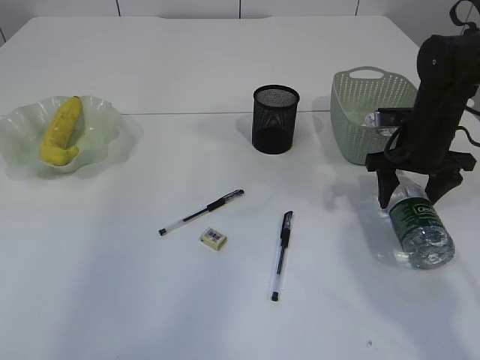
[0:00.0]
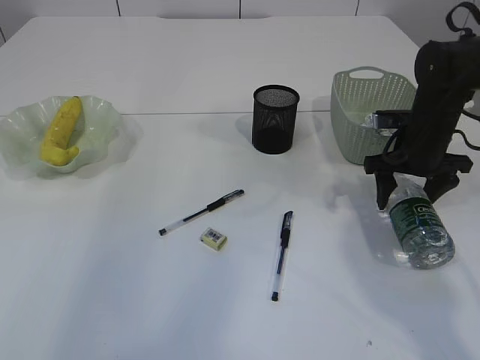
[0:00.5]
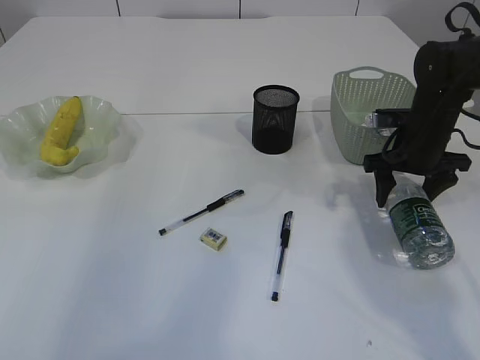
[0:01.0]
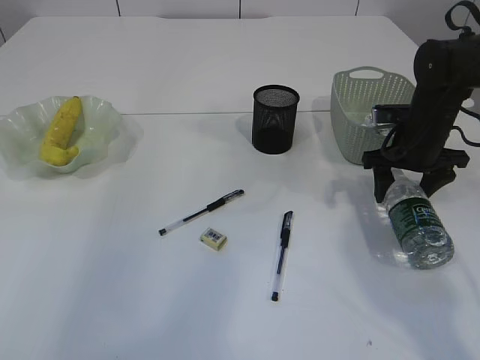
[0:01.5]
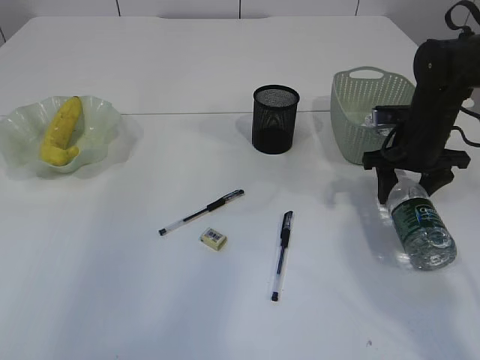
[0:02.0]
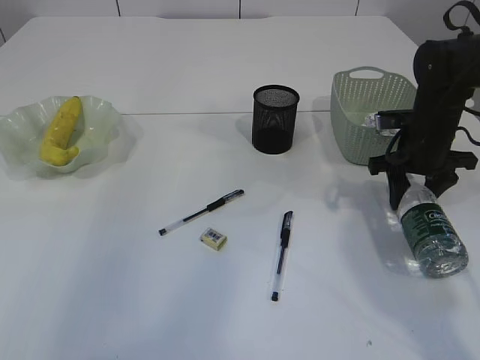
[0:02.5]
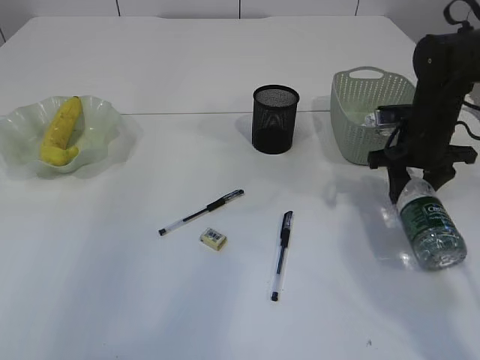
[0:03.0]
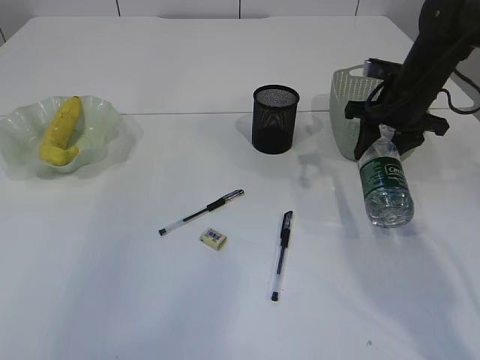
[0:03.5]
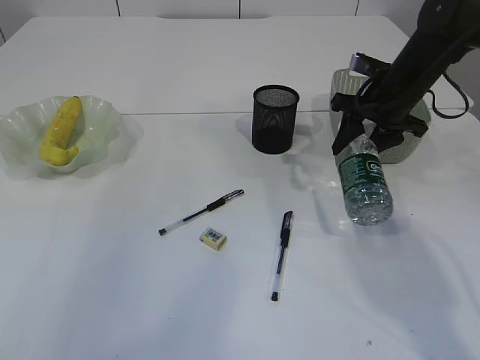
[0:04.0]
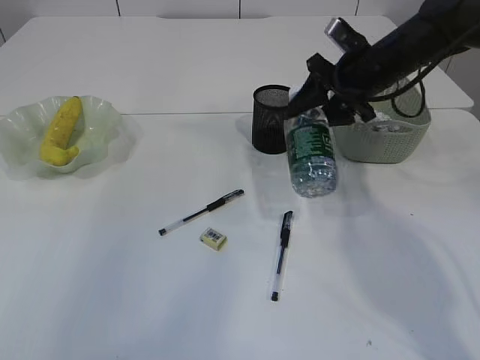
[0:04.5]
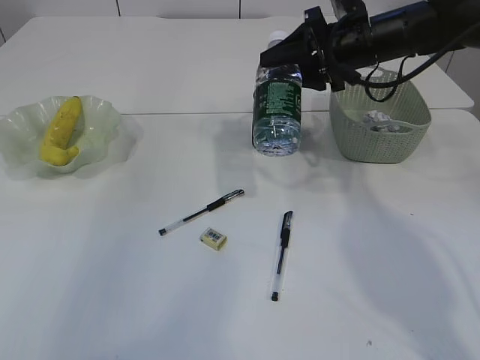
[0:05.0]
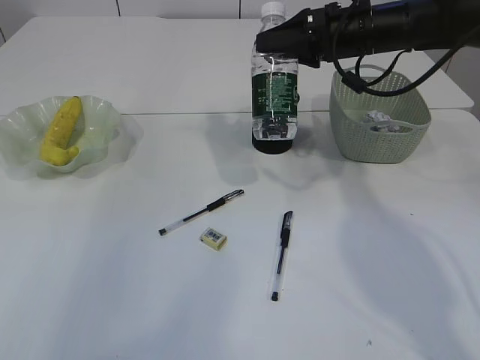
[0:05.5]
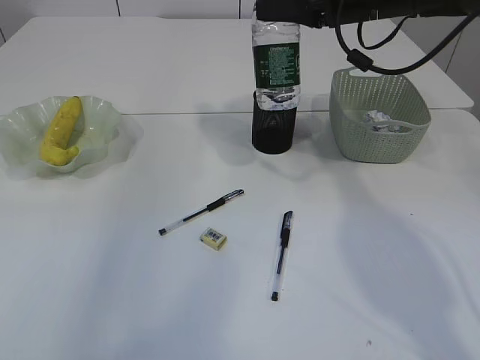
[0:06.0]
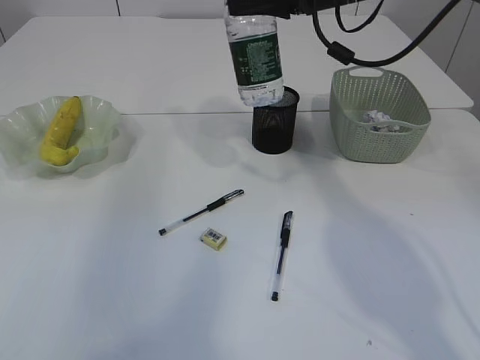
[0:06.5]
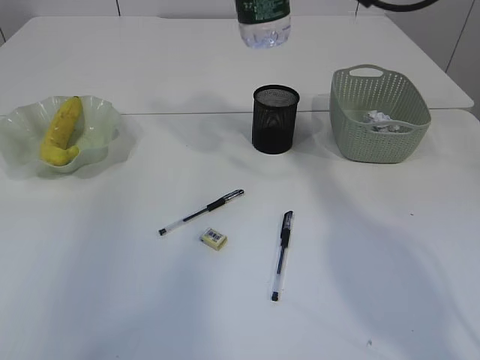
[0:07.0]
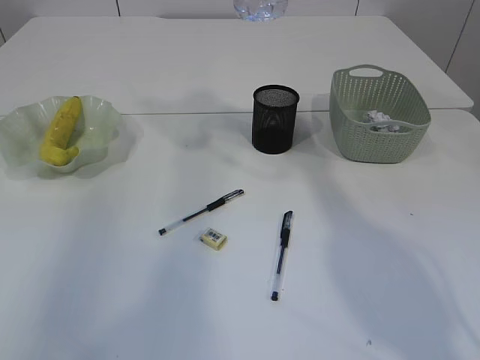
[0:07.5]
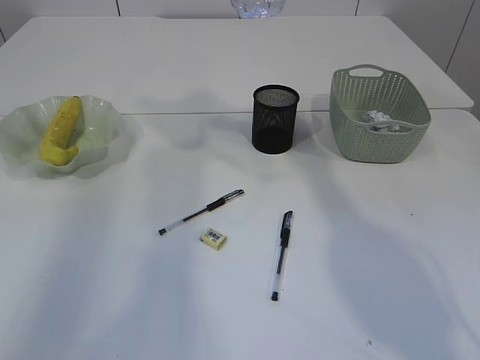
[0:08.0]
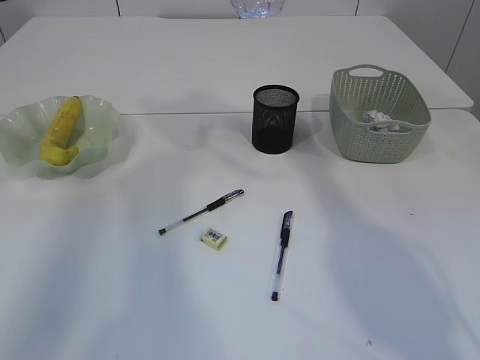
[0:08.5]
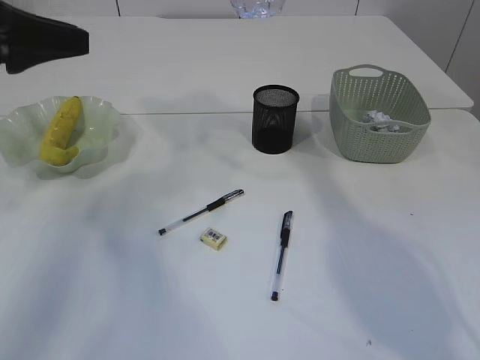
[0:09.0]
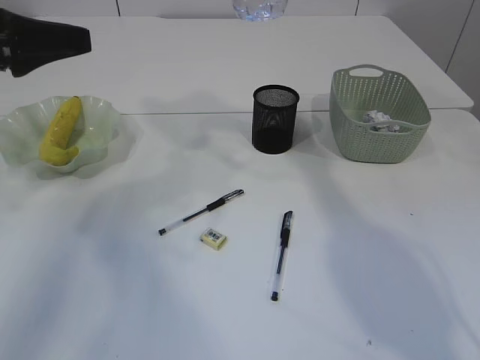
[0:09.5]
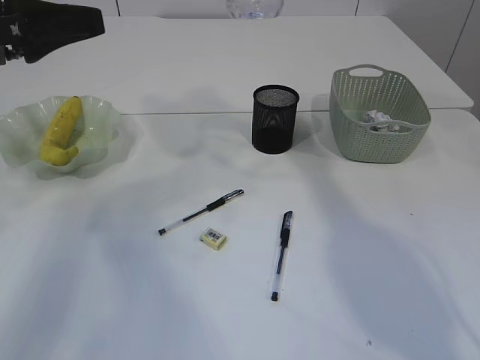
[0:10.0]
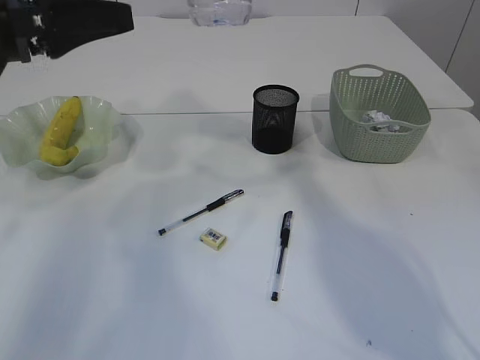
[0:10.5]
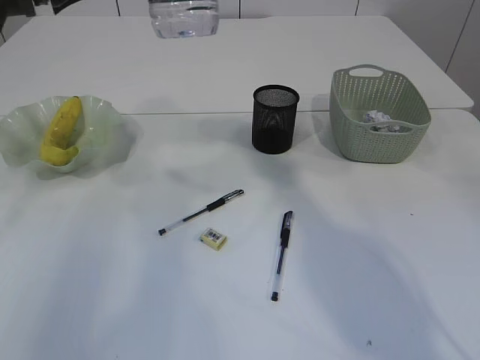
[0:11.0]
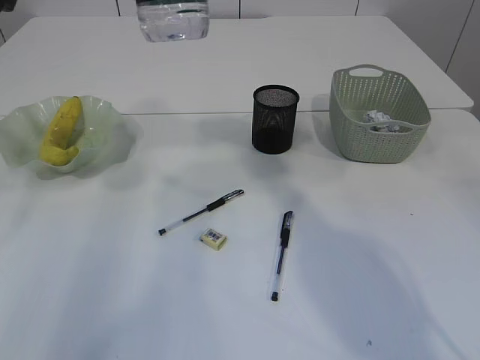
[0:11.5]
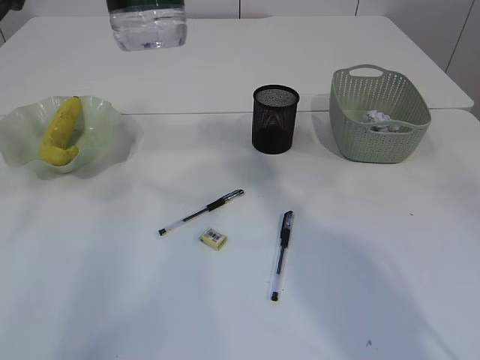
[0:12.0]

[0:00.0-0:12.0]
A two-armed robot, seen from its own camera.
Step, 0:00.0 to 0:03.5: Pick up the bottle with the right arm.
0:00.0 to 0:02.0: Both grippers stay put.
0:02.0 to 0:04.0: The right gripper travels upward by approximately 5 cm.
0:04.0 to 0:06.0: The right gripper shifts approximately 10 cm upward and to the left.
0:06.0 to 0:08.0: The left gripper heads downward and forward, covering approximately 20 cm. Meanwhile the right gripper moves upward and backward, approximately 15 cm.
0:08.0 to 0:10.0: The left gripper shifts approximately 15 cm downward, and opens its fingers.
0:10.0 to 0:12.0: The left gripper shifts about 10 cm to the right and upward; the right gripper moves to the left, some 10 cm.

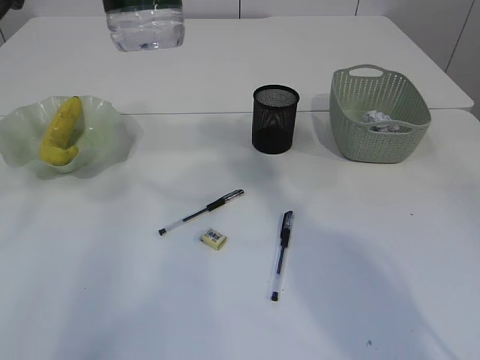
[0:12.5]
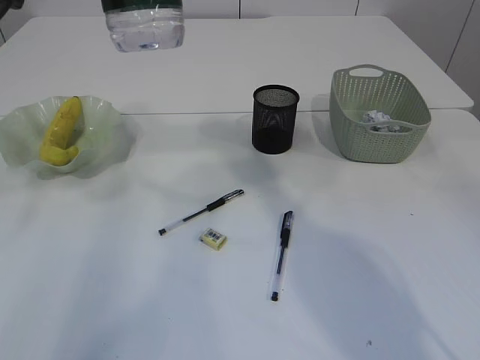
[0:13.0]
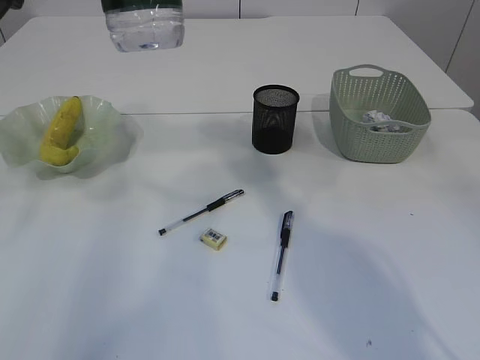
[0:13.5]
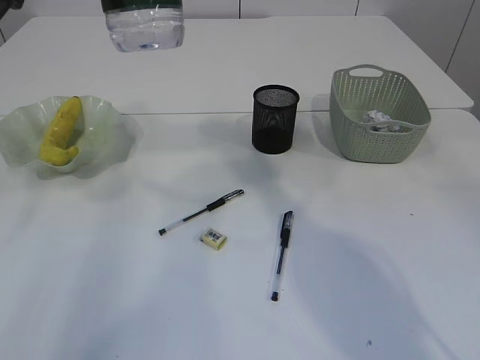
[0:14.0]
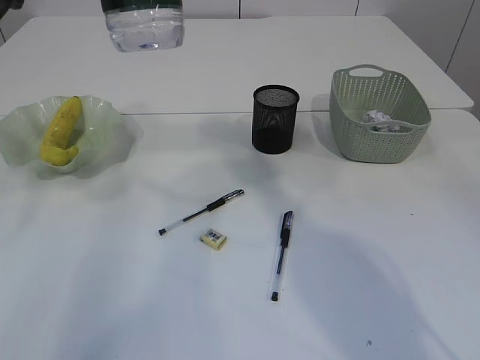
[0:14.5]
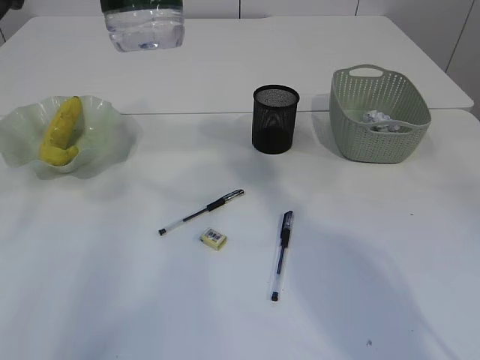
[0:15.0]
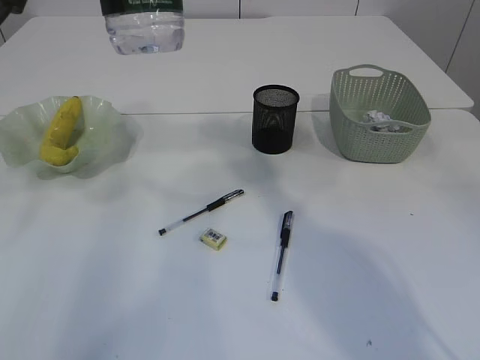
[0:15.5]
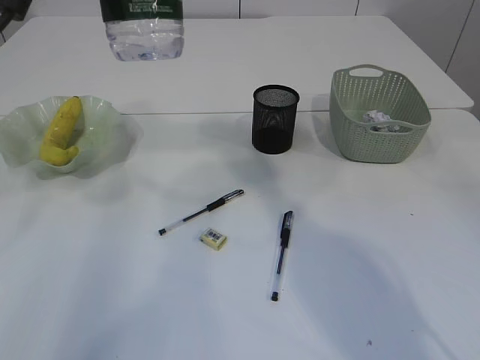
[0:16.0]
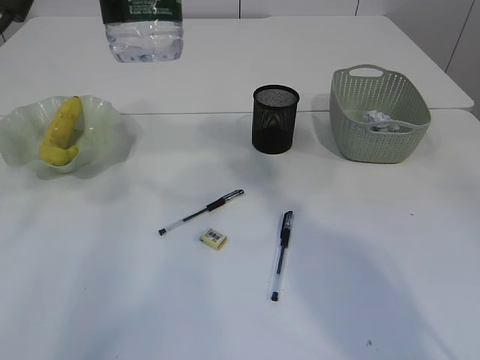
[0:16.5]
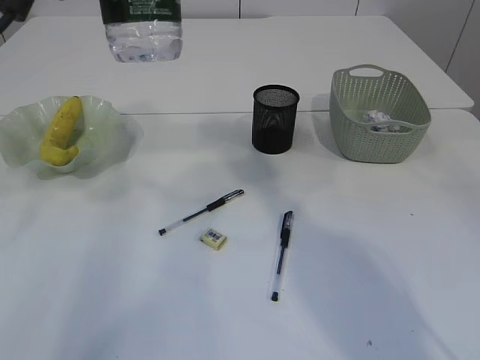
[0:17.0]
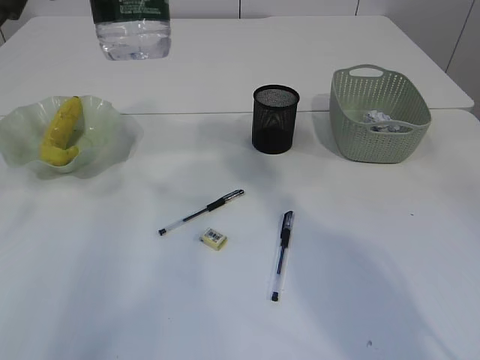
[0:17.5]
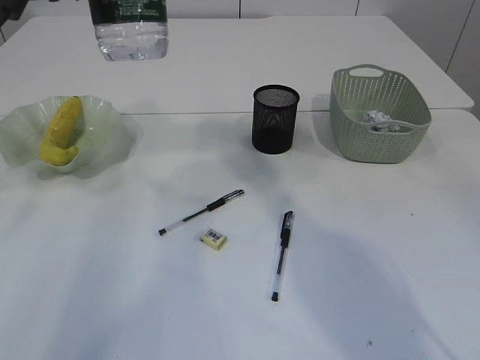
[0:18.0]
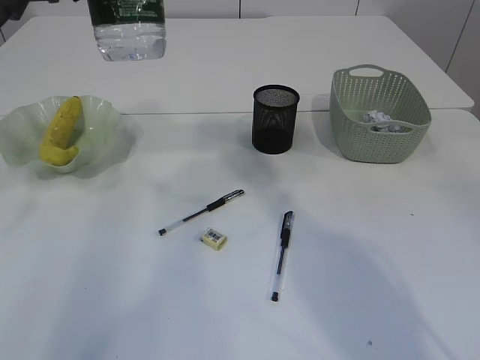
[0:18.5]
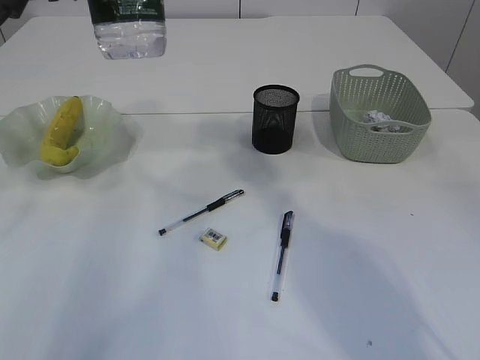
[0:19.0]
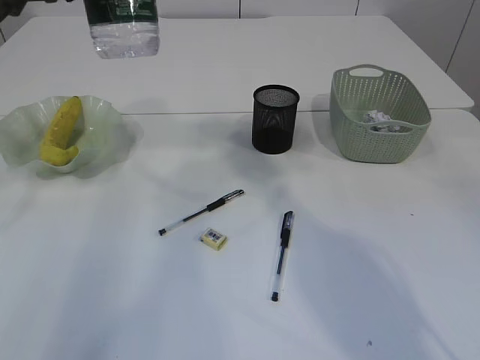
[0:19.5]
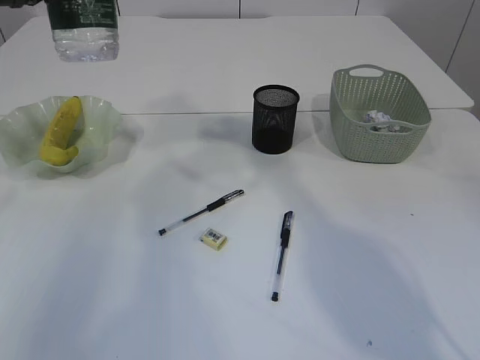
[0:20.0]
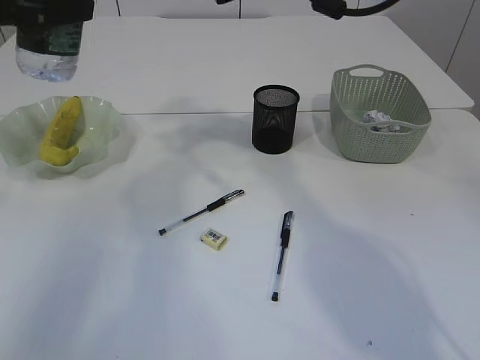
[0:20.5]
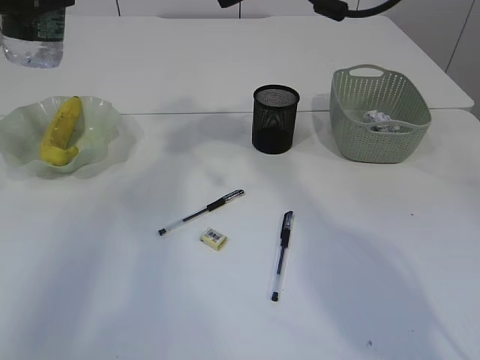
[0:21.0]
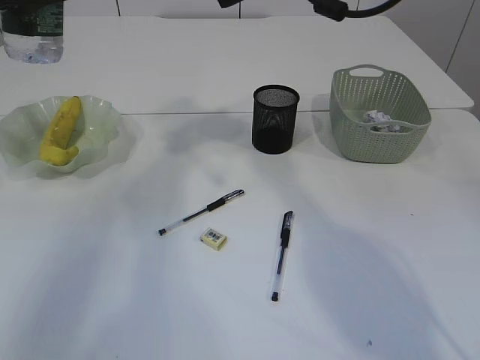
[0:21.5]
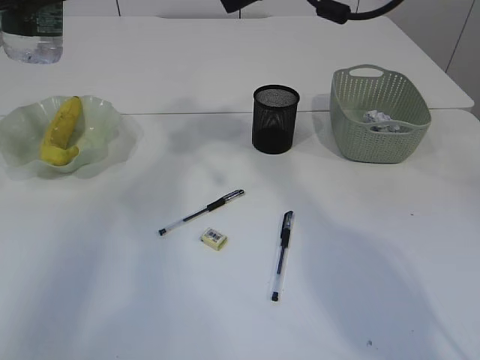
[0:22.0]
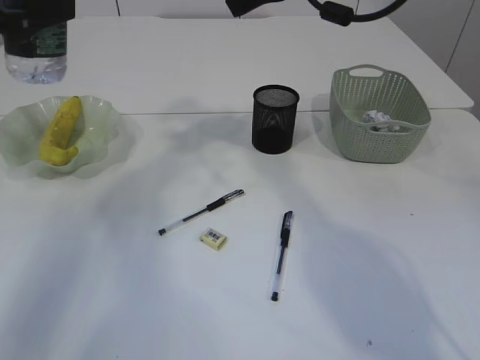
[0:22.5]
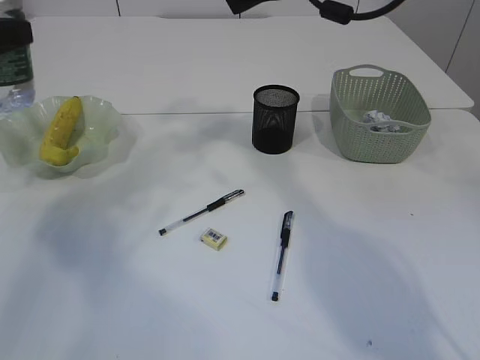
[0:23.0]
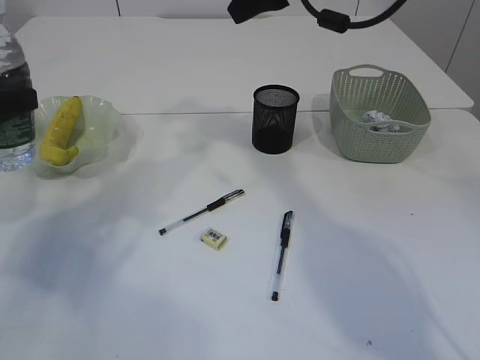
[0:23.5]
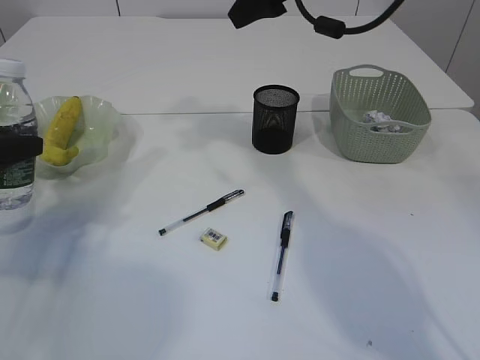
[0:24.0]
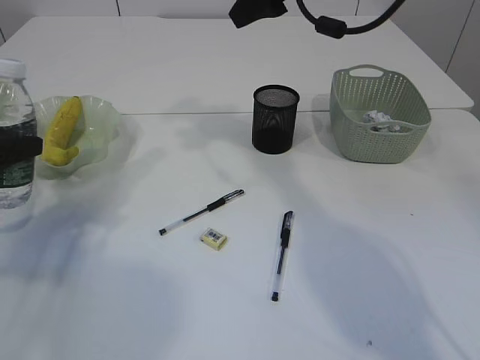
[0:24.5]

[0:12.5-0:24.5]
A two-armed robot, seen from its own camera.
Step, 0:12.5 to 0:19.5: transfer the bottle to the left arm.
0:12.5 to 0:14.5: Neither gripper changes place.
0:16.5 to 0:18.5: The grippers move only a little.
0:18.5 to 0:20.5: The right gripper moves to the right, approximately 5 cm, while the left gripper heads to the left, covering approximately 5 cm.
0:20.5 to 0:22.5: The grippers move only a little.
0:22.5 to 0:24.5: The left gripper shifts about 15 cm downward and to the left.

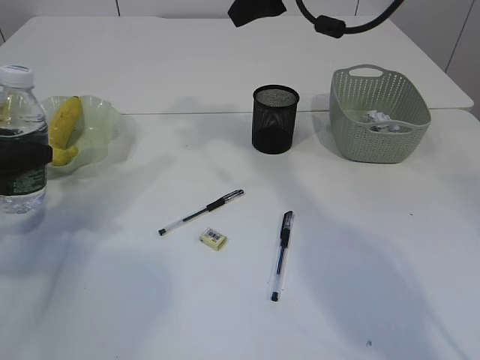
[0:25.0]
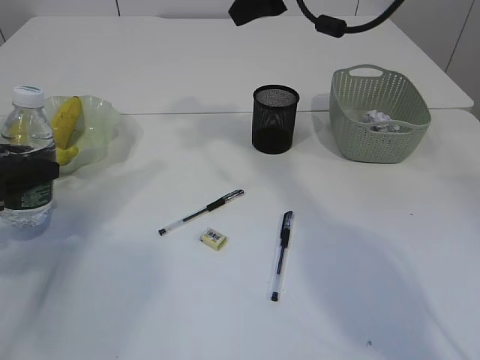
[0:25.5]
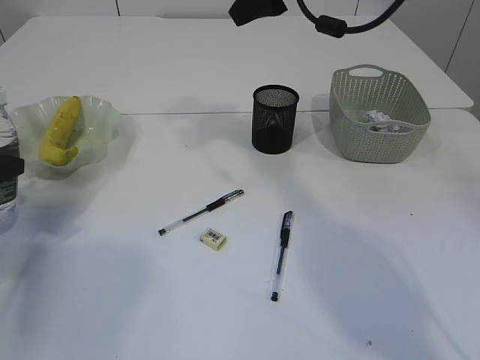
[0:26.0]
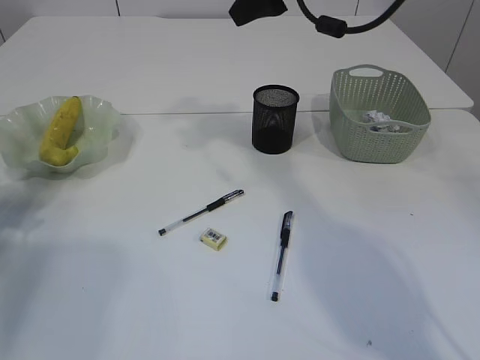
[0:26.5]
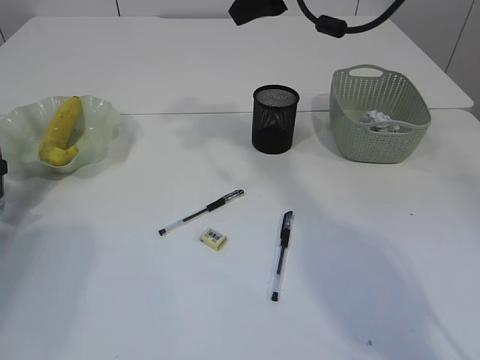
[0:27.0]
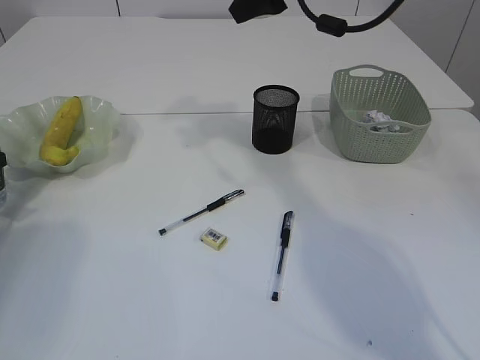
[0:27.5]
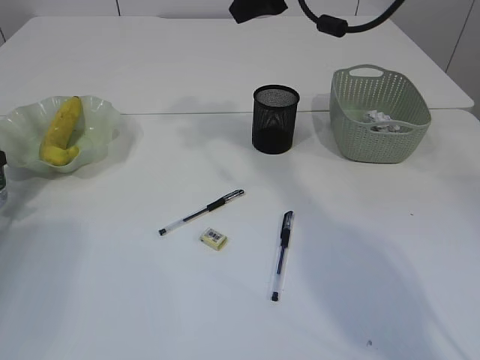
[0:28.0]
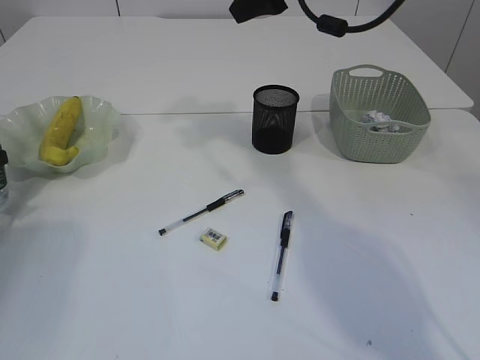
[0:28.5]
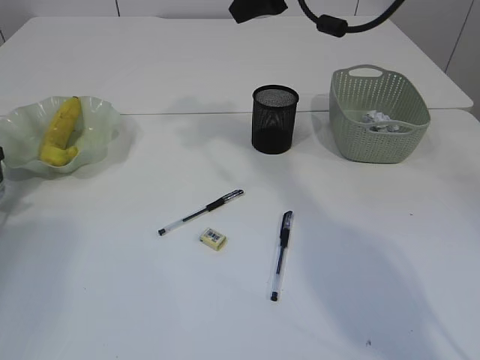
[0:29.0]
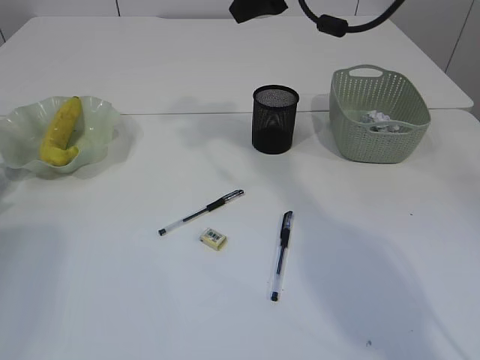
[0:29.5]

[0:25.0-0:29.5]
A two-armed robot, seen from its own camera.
0:25.0 to 0:27.0: The left gripper is displaced to the left and downward by approximately 10 cm.
0:27.0 to 0:29.5: The grippers stay close to where they were, moving slightly.
